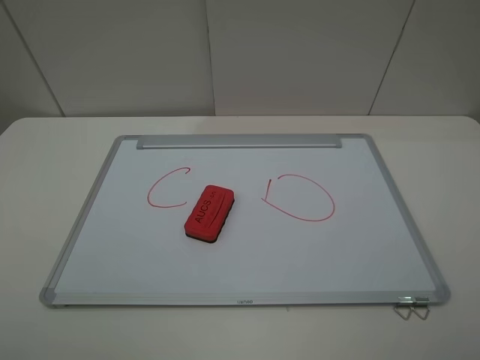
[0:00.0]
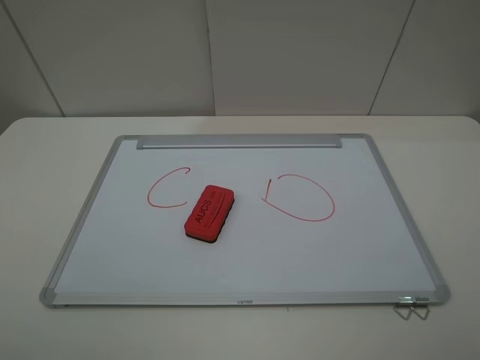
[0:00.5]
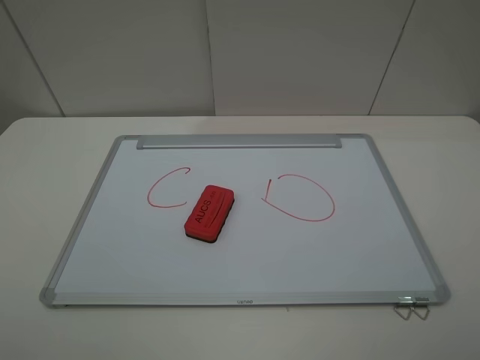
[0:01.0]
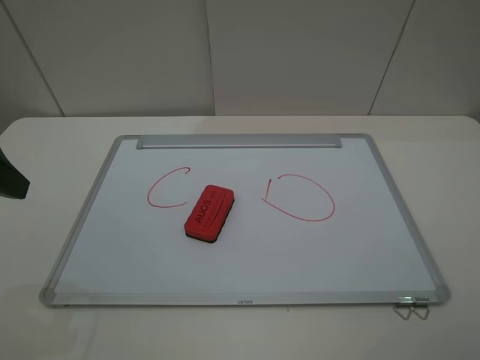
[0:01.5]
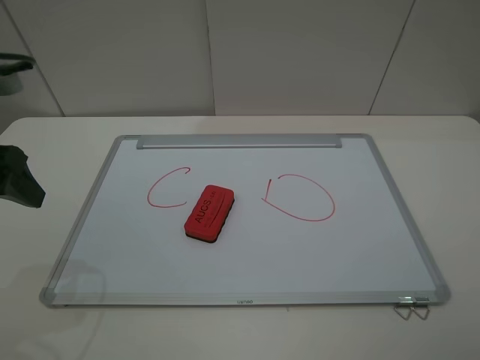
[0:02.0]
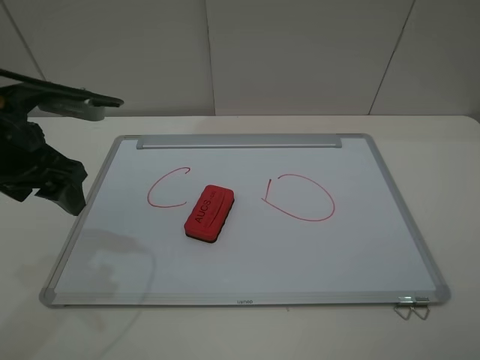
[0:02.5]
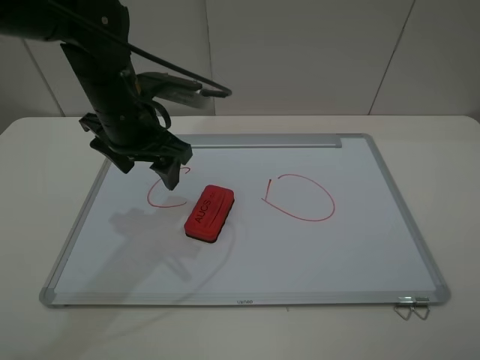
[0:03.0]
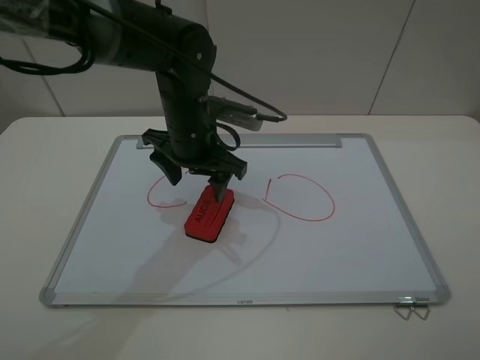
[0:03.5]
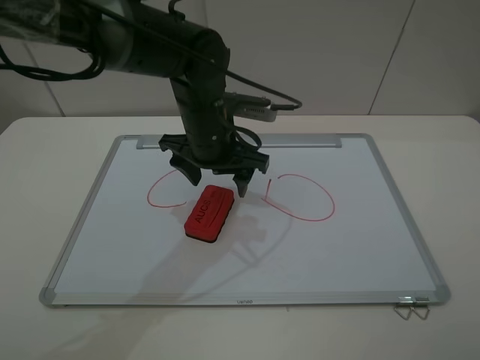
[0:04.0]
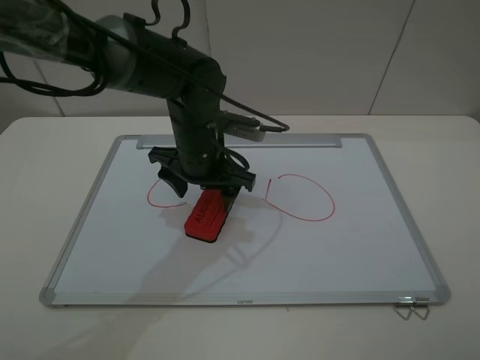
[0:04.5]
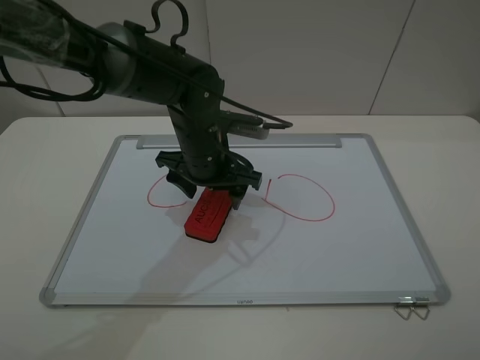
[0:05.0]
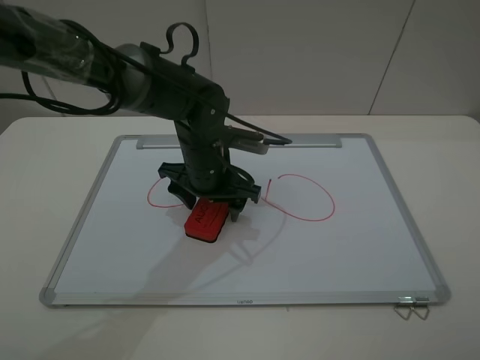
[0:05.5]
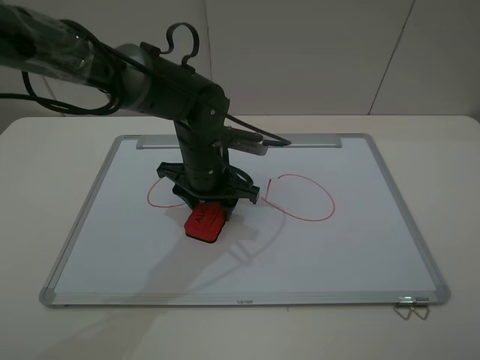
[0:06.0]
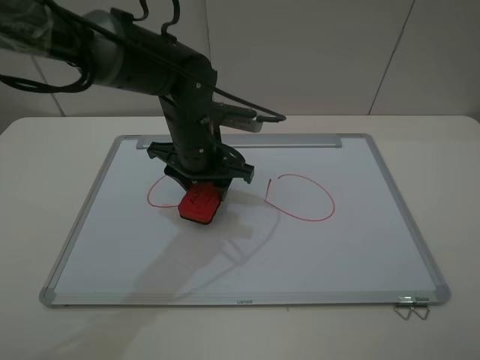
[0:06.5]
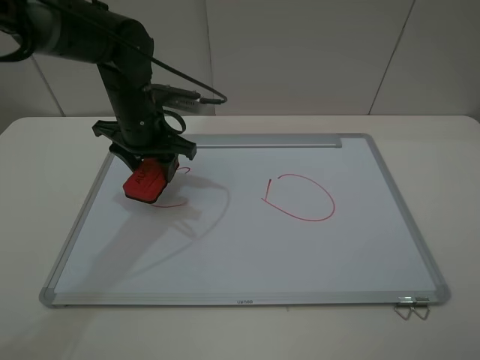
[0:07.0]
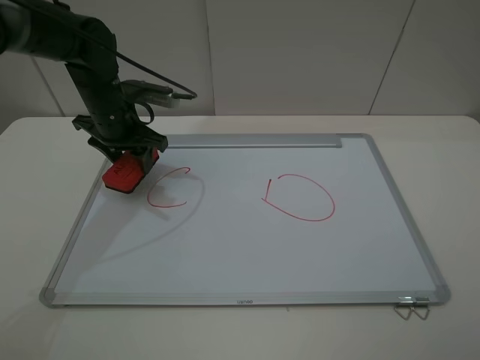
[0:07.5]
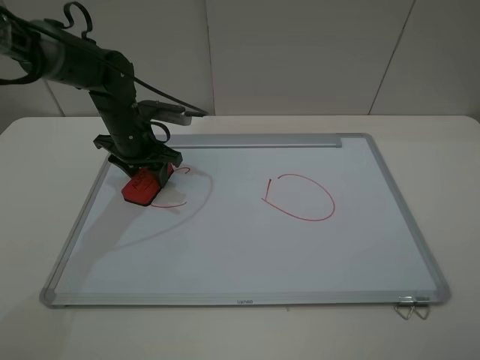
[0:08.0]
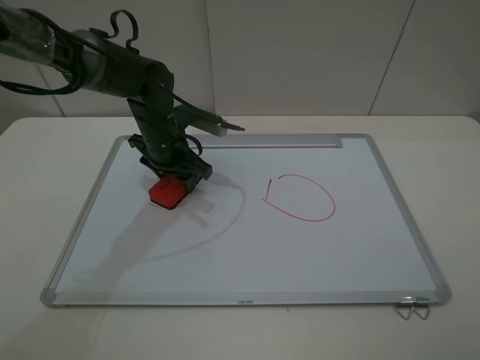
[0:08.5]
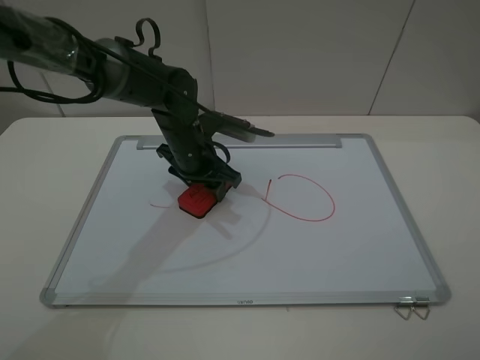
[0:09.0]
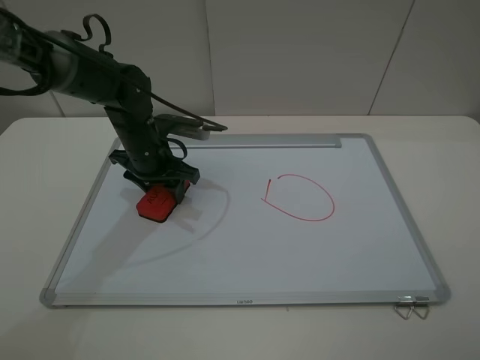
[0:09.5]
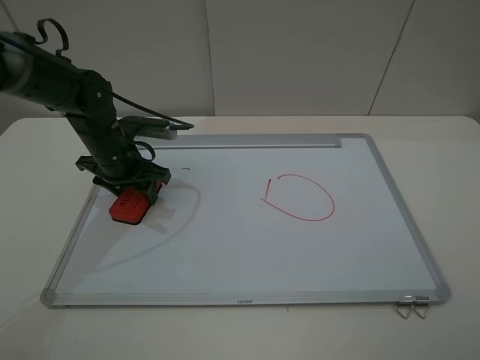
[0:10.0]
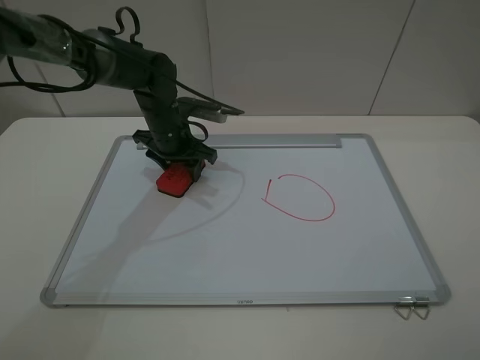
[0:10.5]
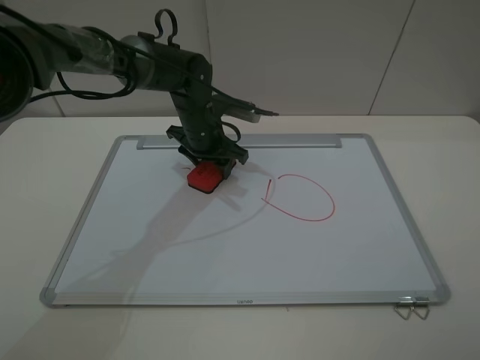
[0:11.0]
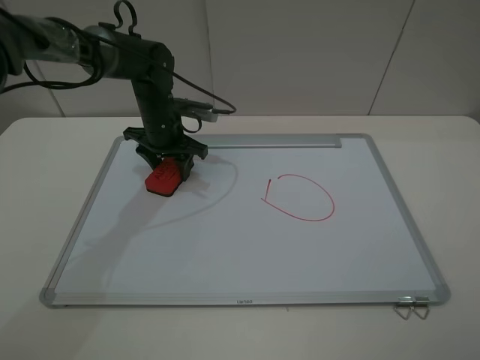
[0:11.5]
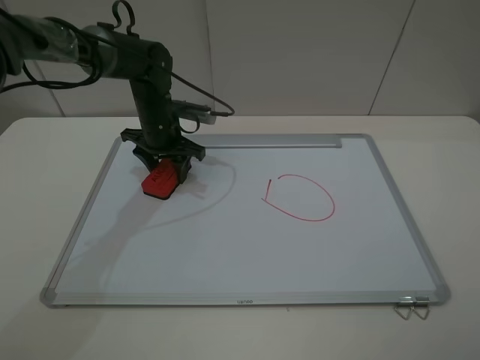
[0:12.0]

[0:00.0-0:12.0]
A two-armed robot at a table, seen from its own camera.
Step, 0:00.0 to 0:06.0: Grasp the eraser with the left gripper.
0:00.0 to 0:02.0: The left gripper shifts approximately 20 cm forward.
0:02.0 to 0:04.0: The left gripper moves to the right, forward and downward, about 30 cm.
0:04.0 to 0:06.0: The left gripper is displaced downward by about 5 cm, and closes its fingers.
0:06.0 to 0:08.0: The left gripper travels to the left and forward by about 15 cm.
0:08.0 to 0:10.0: The left gripper moves about 10 cm to the right and comes back.
0:10.0 to 0:12.0: The left gripper goes roughly 10 cm forward and to the right.

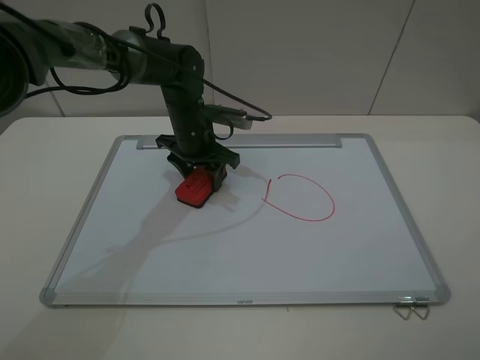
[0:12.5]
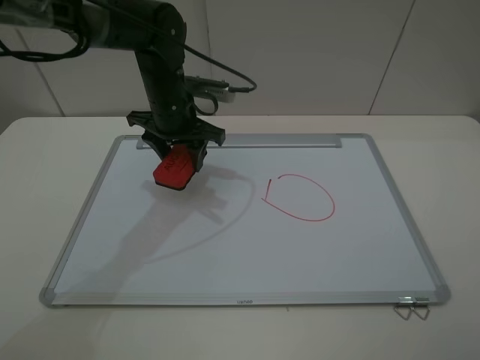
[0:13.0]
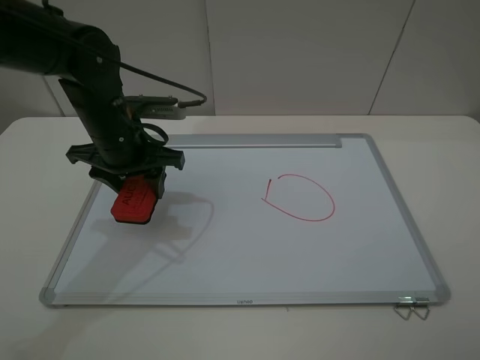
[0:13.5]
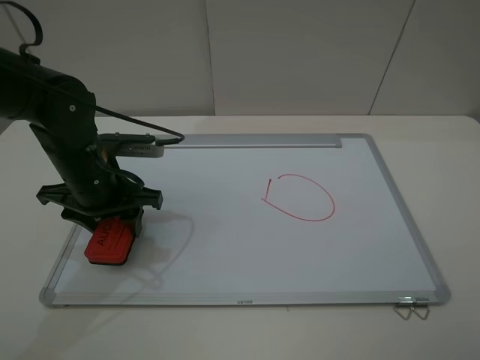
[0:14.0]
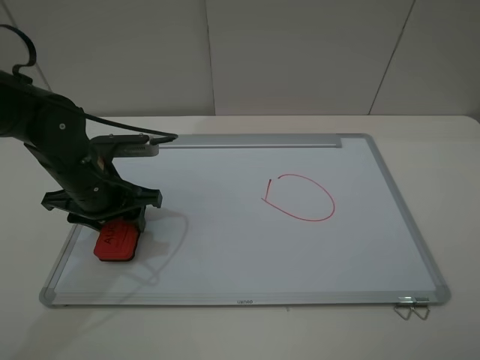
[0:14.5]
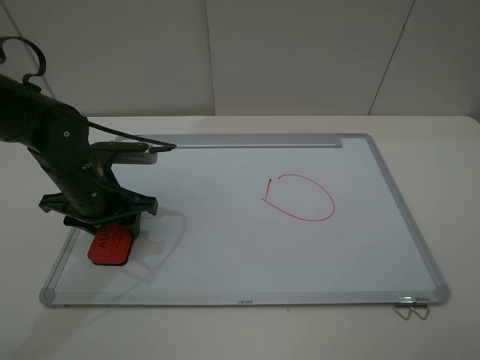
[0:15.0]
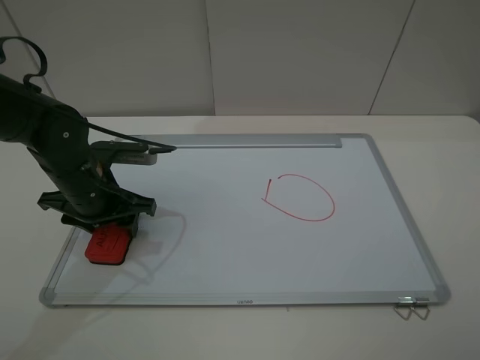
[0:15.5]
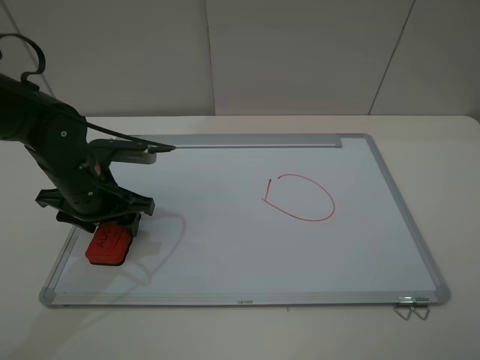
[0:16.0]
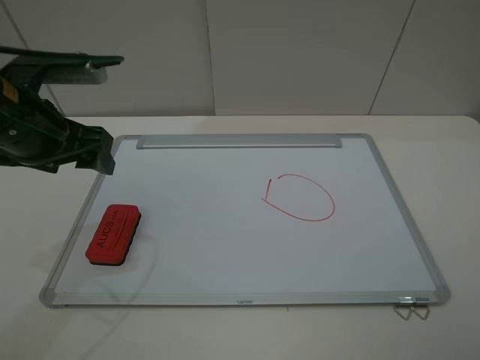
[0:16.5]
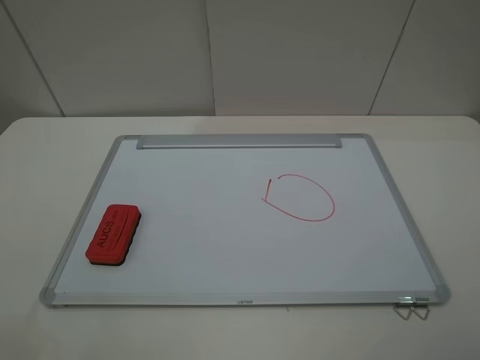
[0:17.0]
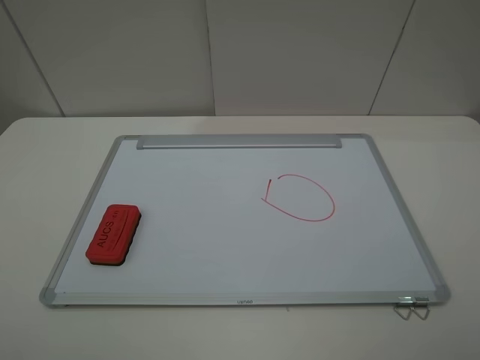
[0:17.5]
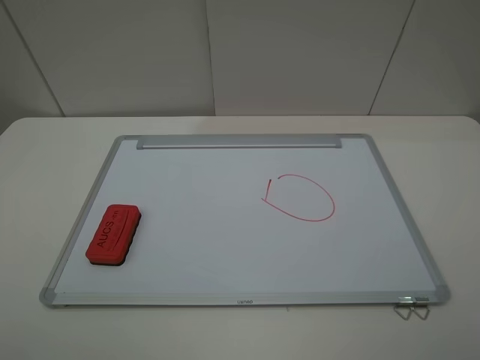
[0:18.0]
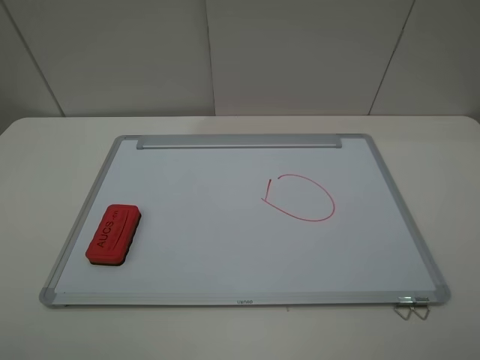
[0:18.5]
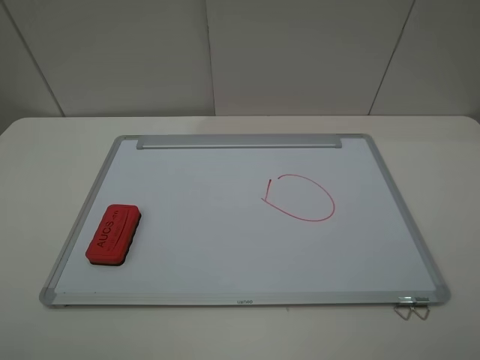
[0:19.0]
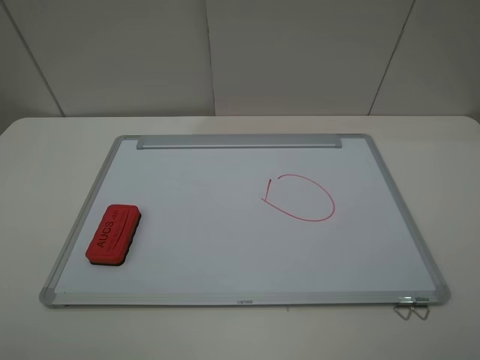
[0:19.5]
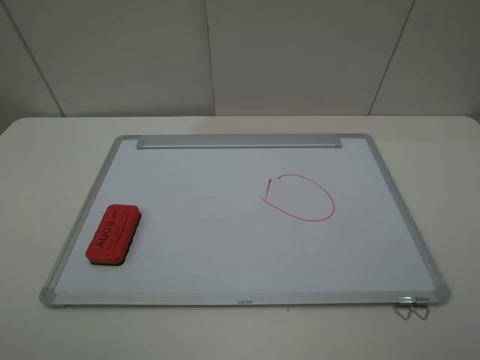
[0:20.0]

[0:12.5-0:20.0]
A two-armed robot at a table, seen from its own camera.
Step, 0:13.0 to 0:16.0: Place the eraser with the left gripper.
0:12.5 to 0:14.5: The left gripper moves backward and to the left, some 20 cm.
0:14.5 to 0:16.5: The left gripper shifts roughly 10 cm upward, and opens up.
0:16.5 to 0:18.0: The left gripper shifts approximately 25 cm backward.
0:18.0 to 0:20.0: The two grippers keep their place.
